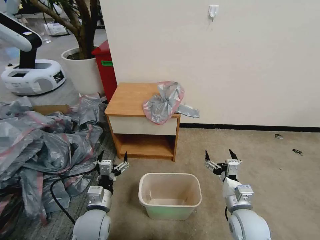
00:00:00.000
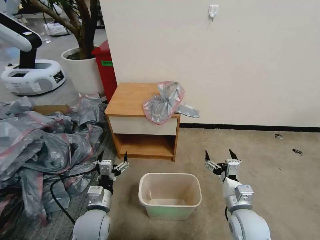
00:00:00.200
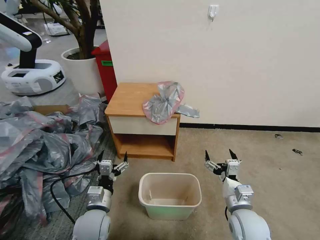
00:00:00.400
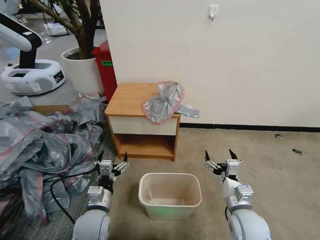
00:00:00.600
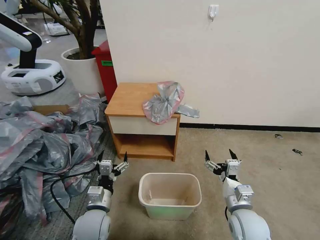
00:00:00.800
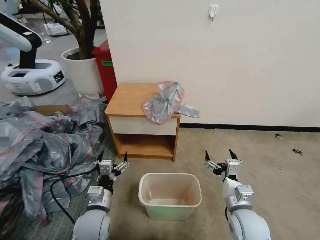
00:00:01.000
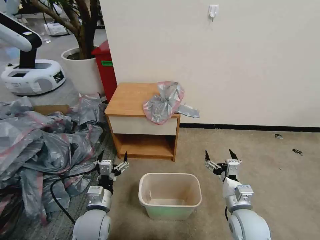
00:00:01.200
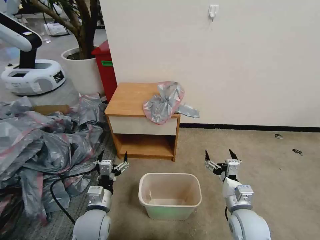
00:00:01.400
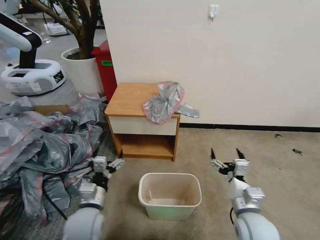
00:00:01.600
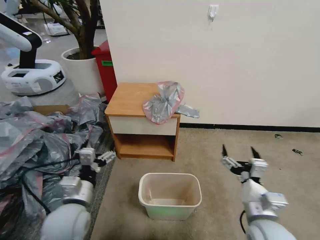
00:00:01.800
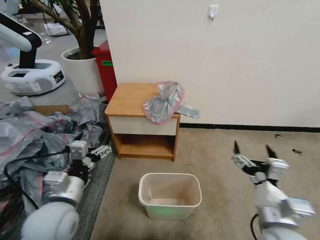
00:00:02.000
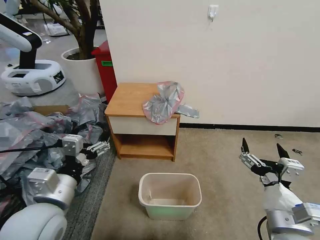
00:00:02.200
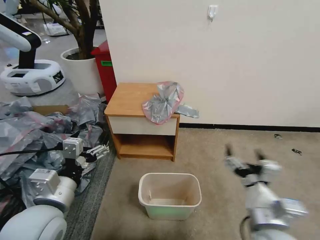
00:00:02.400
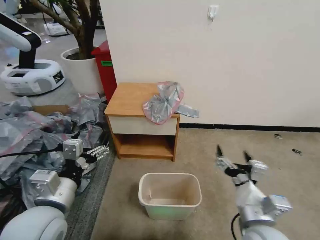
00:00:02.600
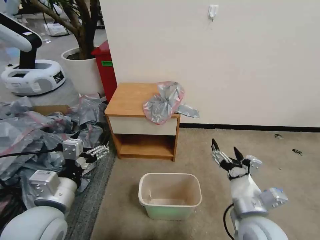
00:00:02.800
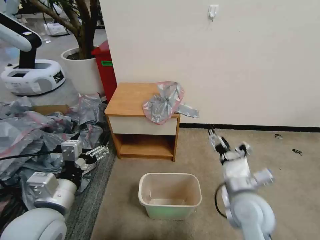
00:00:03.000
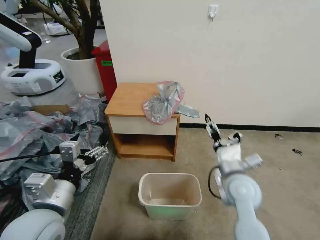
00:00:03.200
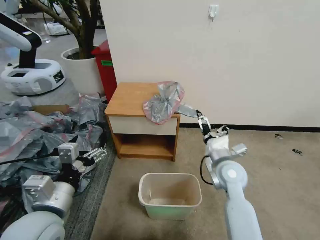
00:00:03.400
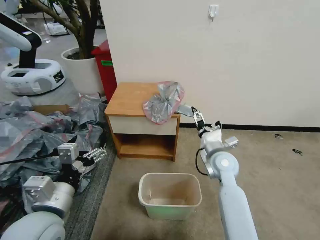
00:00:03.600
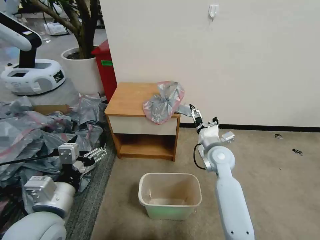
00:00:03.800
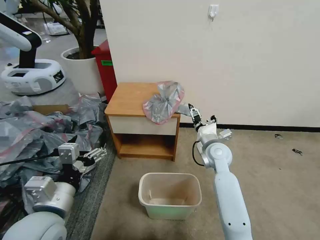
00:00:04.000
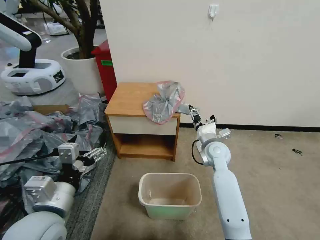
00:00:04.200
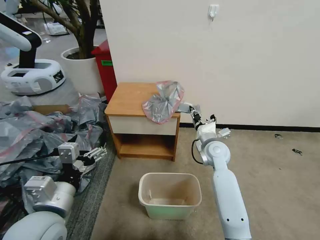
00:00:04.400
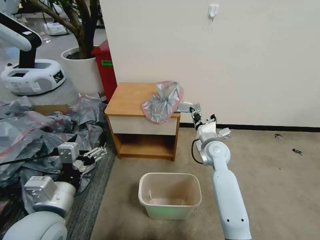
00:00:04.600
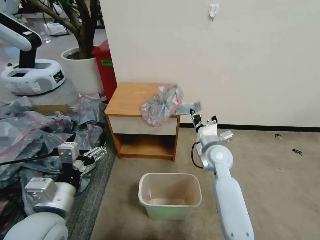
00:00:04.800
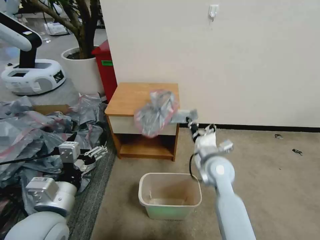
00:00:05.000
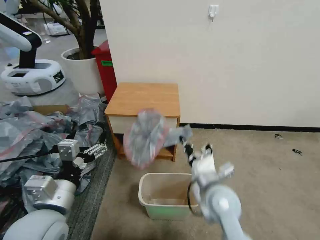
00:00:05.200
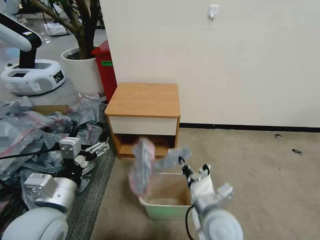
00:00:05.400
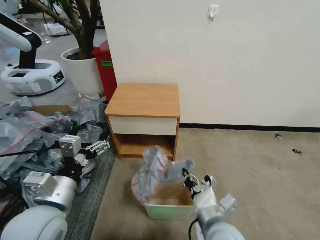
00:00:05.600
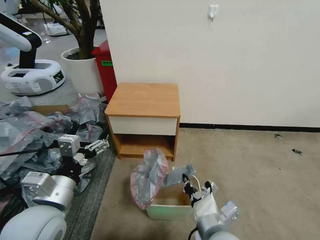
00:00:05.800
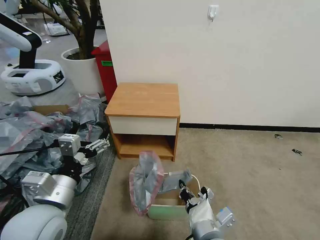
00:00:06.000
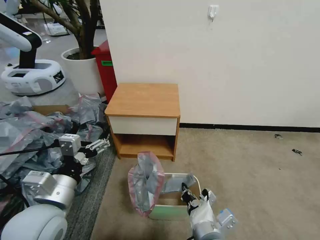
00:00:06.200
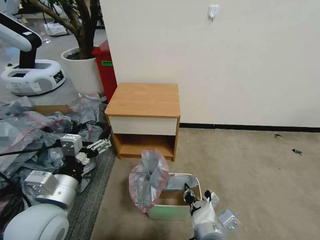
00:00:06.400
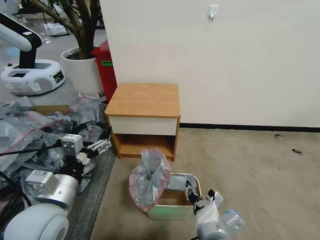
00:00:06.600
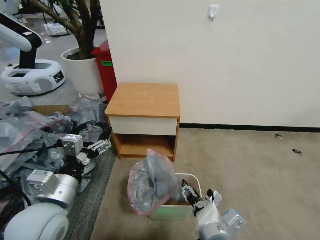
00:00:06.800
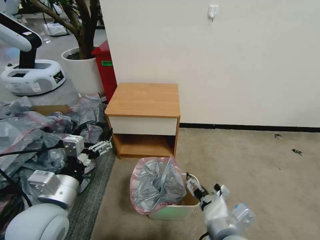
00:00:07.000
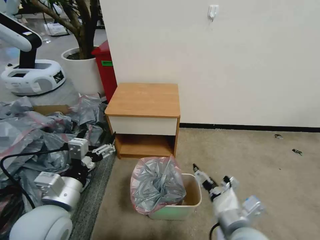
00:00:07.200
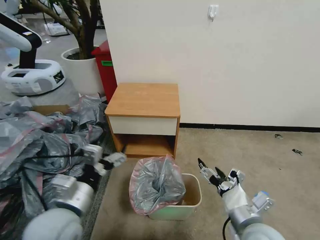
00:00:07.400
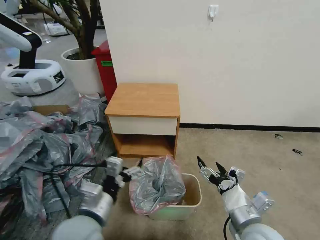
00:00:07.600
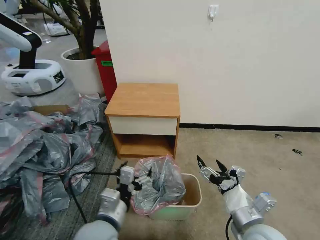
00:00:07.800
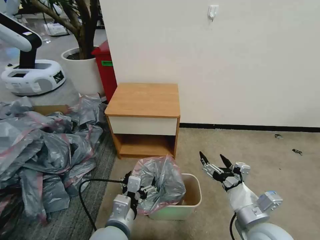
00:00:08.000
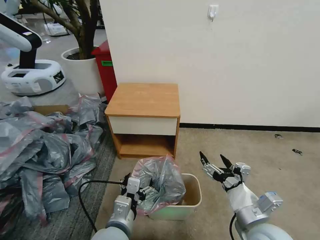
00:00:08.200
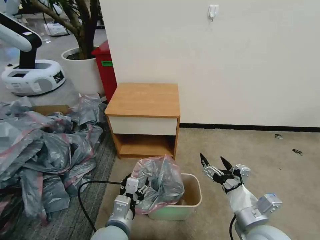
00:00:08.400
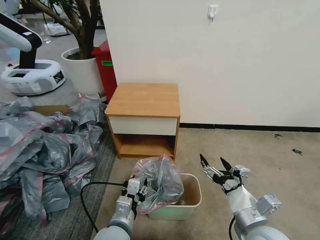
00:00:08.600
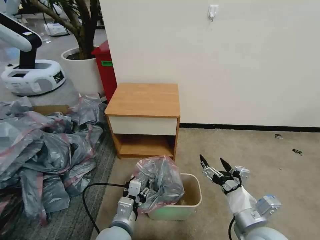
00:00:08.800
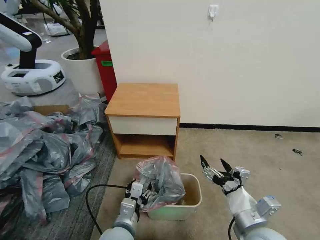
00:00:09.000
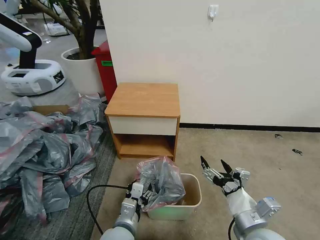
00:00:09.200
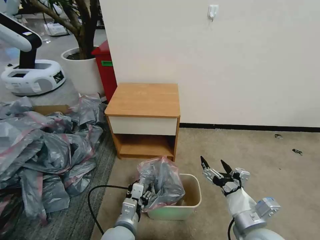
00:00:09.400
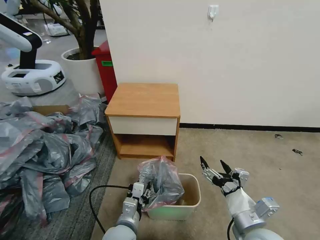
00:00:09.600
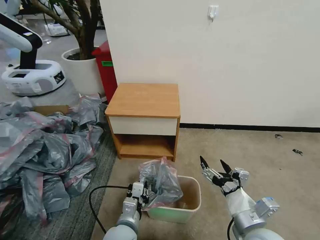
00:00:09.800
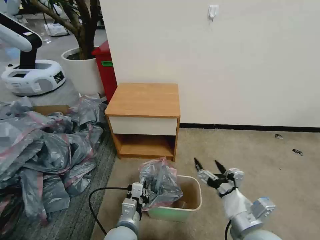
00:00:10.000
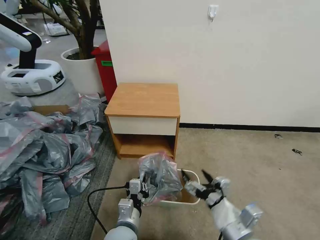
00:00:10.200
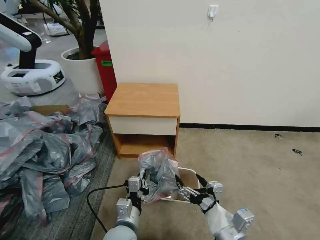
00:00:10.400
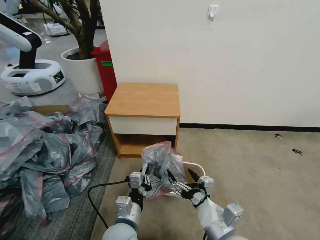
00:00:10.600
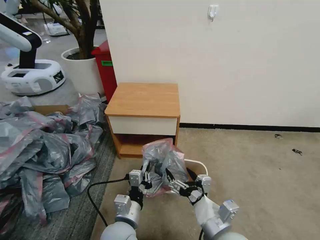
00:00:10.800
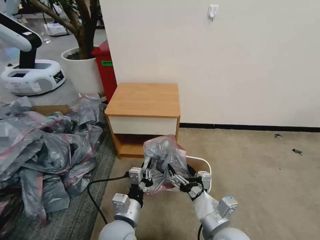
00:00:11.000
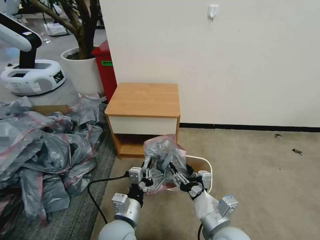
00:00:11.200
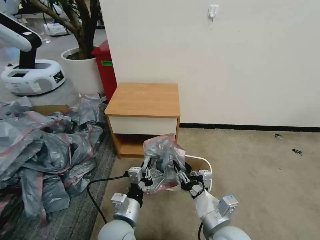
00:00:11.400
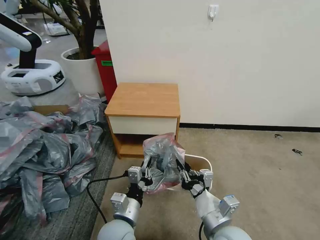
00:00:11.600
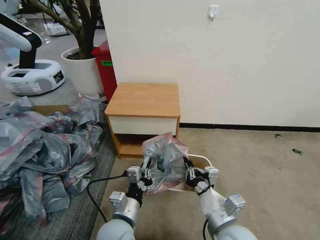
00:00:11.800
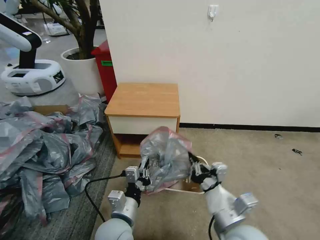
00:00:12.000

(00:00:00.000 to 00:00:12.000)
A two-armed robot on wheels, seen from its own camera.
Task of the whole recording: Pick up the garbage bag from the table and place it over the trash can.
00:00:01.600 - 00:00:03.000: The left gripper shifts roughly 15 cm upward; the right gripper heads upward, covering about 5 cm.
00:00:03.000 - 00:00:04.400: The right gripper shifts some 20 cm forward, and closes.
00:00:04.400 - 00:00:06.000: The right gripper goes some 30 cm backward, and closes up.
00:00:06.000 - 00:00:07.600: The left gripper shifts roughly 10 cm to the right and downward, while the right gripper moves to the right, roughly 10 cm, and opens up.
00:00:07.600 - 00:00:09.000: The left gripper is displaced downward and to the right by roughly 10 cm.
00:00:09.000 - 00:00:10.400: The right gripper ends up approximately 5 cm from where it was, while the left gripper closes its fingers.
00:00:10.400 - 00:00:12.000: The right gripper moves approximately 5 cm, and closes.

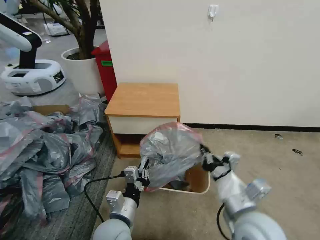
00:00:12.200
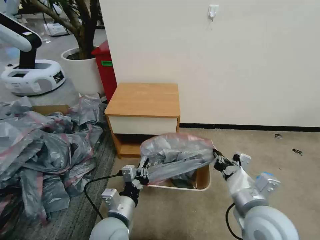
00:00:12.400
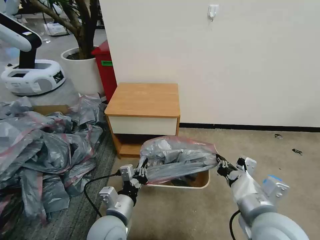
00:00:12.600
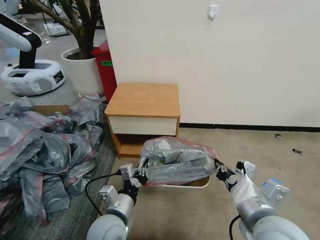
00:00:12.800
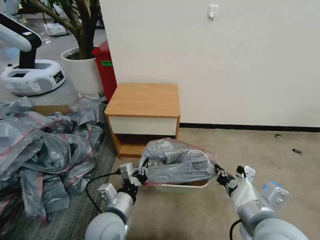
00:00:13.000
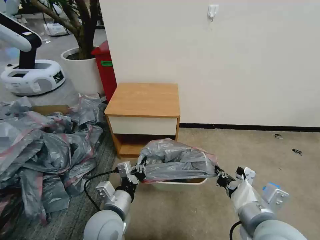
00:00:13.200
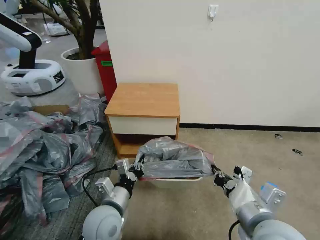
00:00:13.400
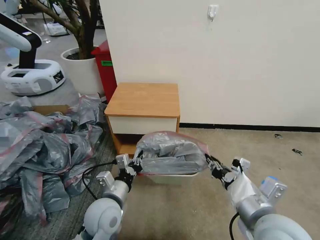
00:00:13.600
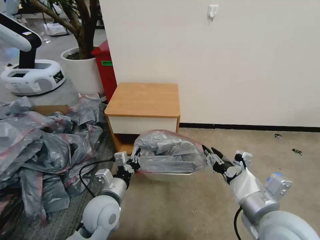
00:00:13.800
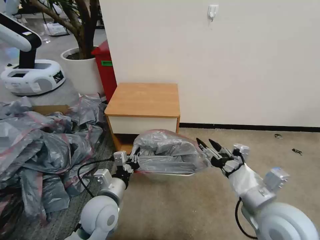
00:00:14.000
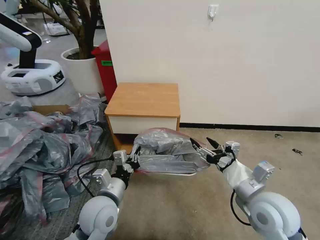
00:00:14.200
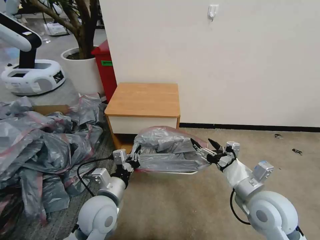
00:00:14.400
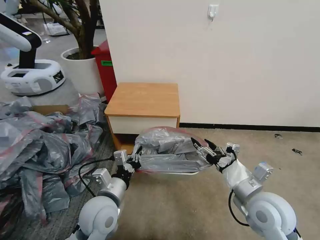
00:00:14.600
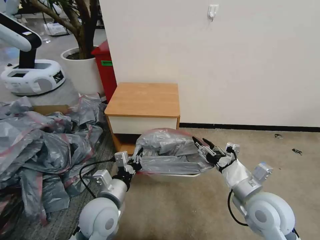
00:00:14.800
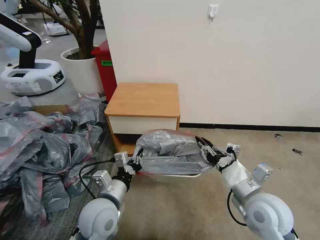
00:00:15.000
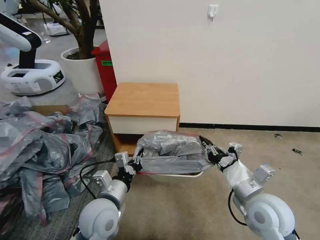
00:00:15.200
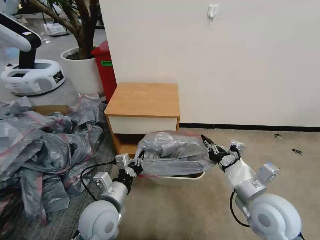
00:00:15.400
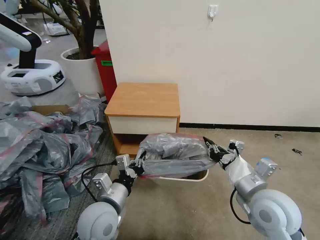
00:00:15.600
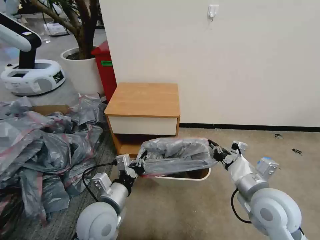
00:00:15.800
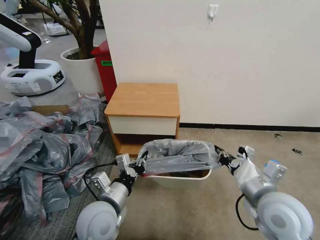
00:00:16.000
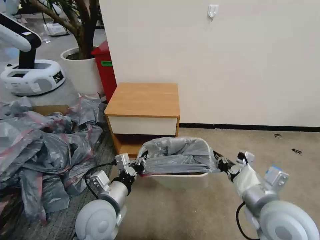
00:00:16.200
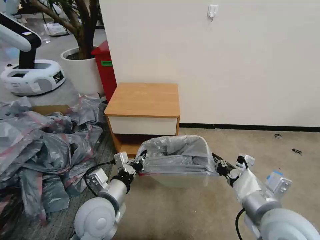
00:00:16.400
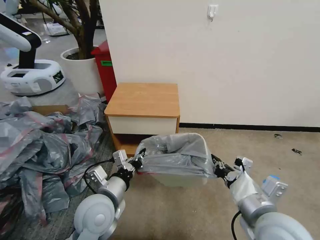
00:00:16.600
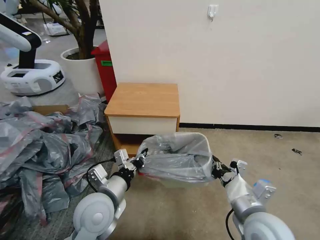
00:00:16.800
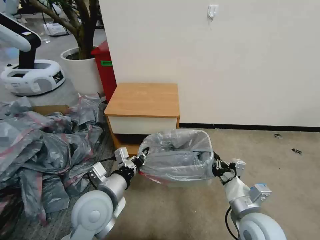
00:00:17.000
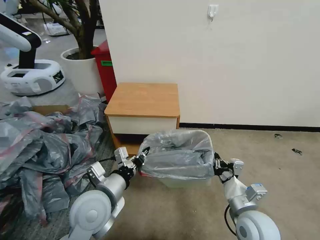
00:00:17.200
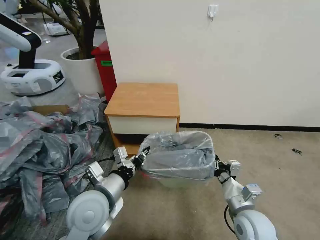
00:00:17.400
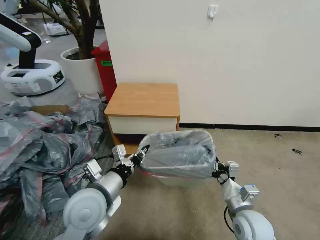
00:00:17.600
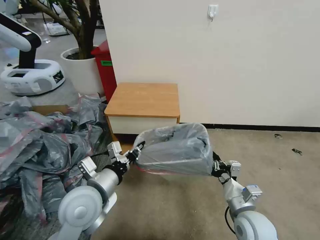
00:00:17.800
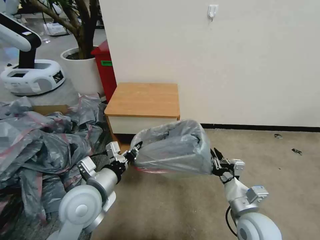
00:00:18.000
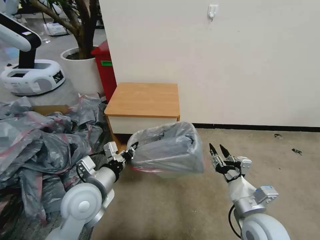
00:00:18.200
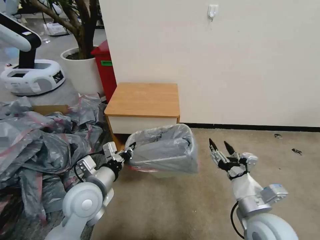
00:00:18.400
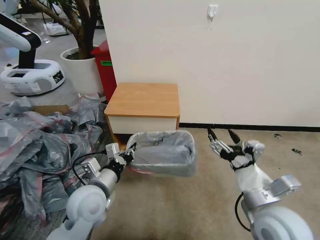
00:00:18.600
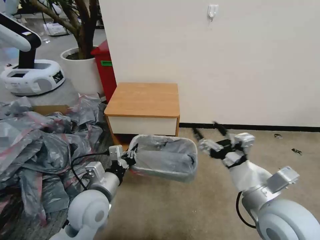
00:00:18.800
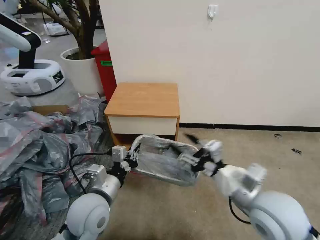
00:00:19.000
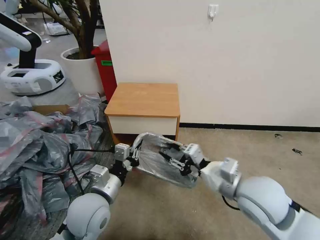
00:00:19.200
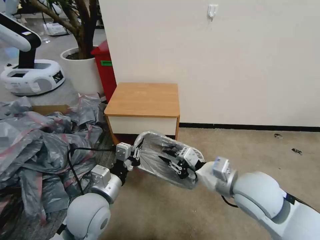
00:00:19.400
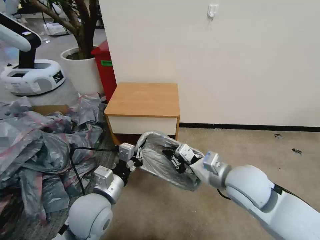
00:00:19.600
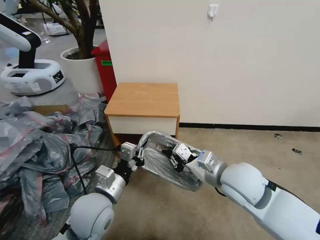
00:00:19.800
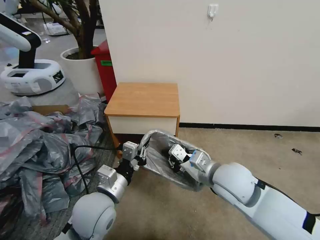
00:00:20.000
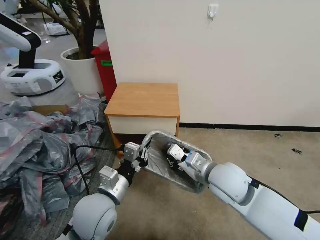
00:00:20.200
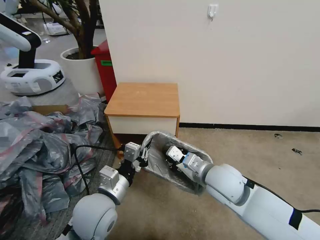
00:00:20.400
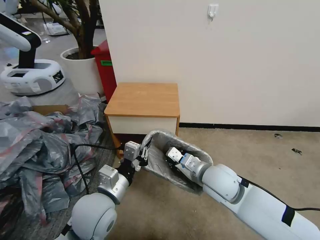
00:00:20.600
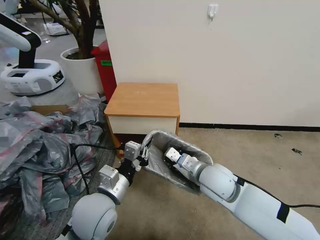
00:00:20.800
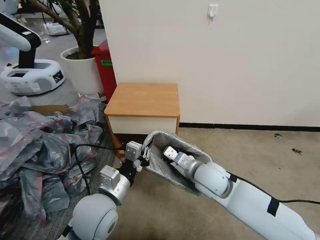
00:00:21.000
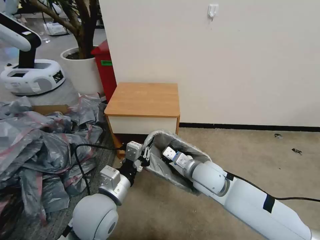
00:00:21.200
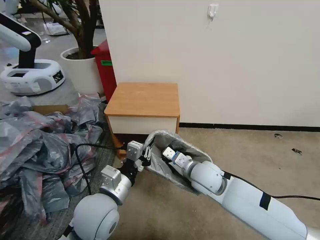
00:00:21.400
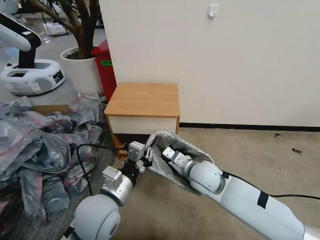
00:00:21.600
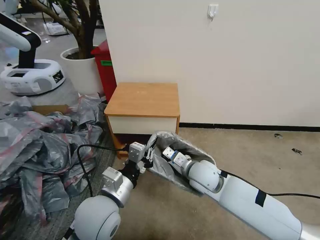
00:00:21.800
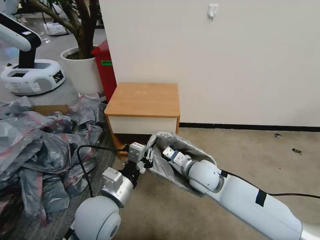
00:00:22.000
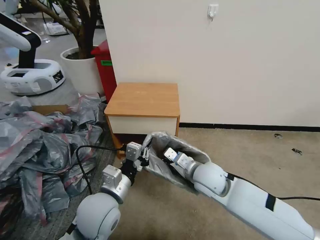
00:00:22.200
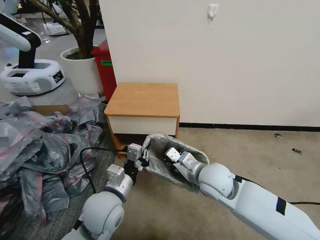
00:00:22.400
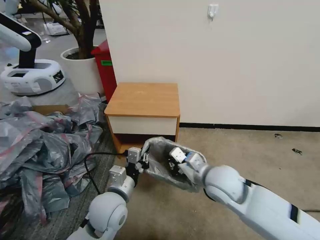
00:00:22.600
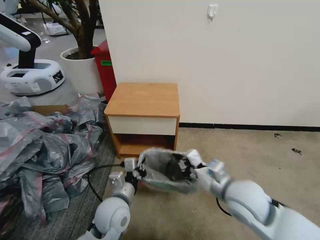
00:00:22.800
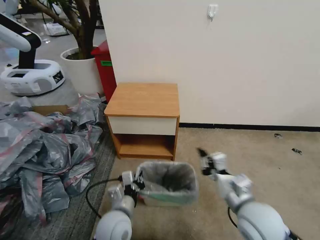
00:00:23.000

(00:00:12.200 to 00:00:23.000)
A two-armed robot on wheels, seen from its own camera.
Task of the whole recording: Pick up the garbage bag from the table and place it over the trash can.
00:00:12.200 - 00:00:13.800: The left gripper heads forward, covering approximately 5 cm; the right gripper shifts by some 5 cm, and opens up.
00:00:13.800 - 00:00:15.200: The right gripper is displaced downward and forward by about 10 cm, and opens, then closes once more.
00:00:16.800 - 00:00:18.400: The right gripper goes downward and returns, some 10 cm each way, and opens.
00:00:18.400 - 00:00:20.000: The right gripper moves forward, to the left and upward, approximately 15 cm, and closes.
00:00:20.000 - 00:00:21.400: The right gripper moves downward, about 10 cm.
00:00:21.400 - 00:00:23.000: The right gripper travels backward and to the right by some 15 cm; the left gripper is displaced downward by about 10 cm.
